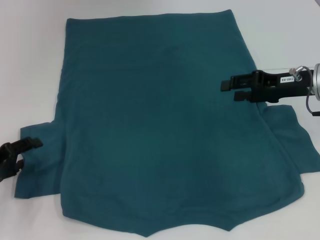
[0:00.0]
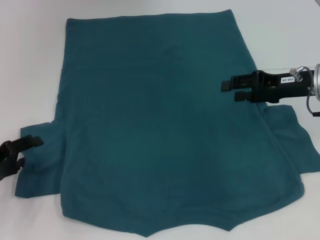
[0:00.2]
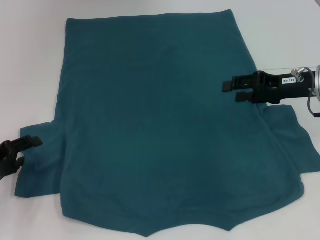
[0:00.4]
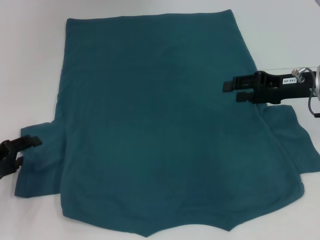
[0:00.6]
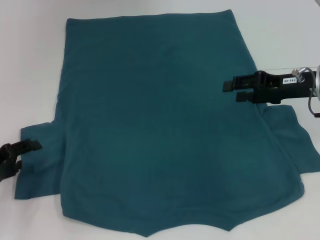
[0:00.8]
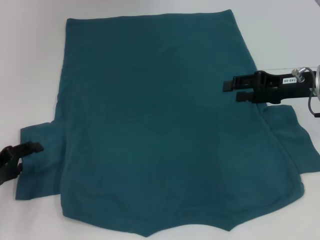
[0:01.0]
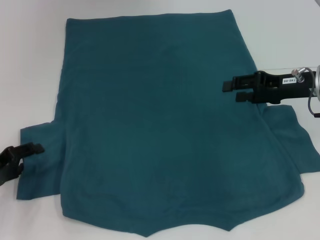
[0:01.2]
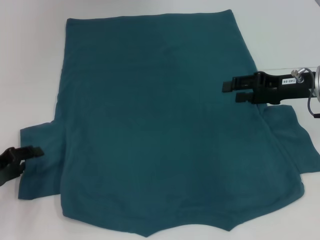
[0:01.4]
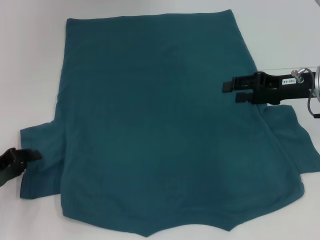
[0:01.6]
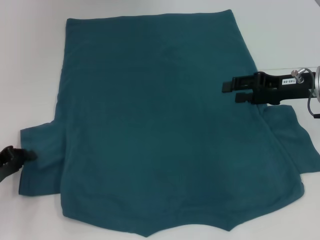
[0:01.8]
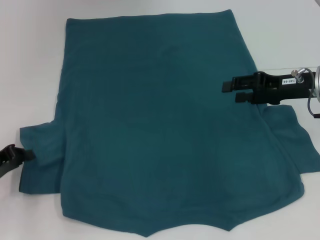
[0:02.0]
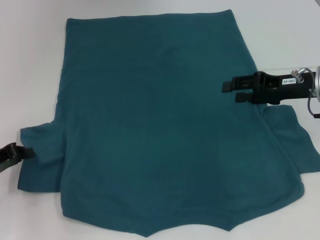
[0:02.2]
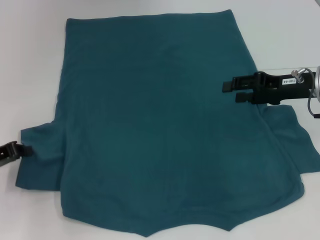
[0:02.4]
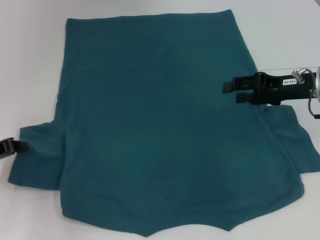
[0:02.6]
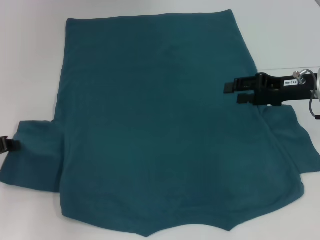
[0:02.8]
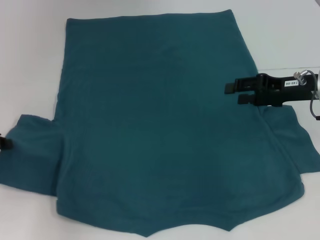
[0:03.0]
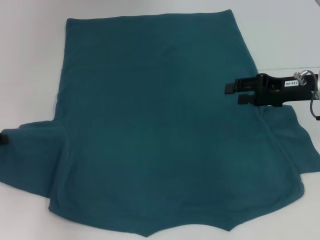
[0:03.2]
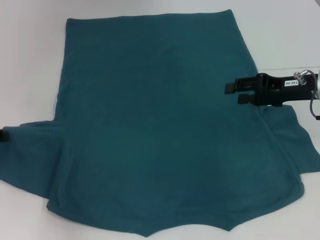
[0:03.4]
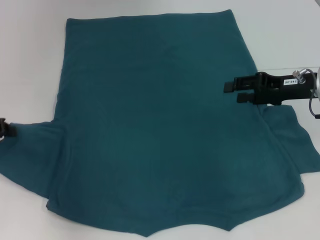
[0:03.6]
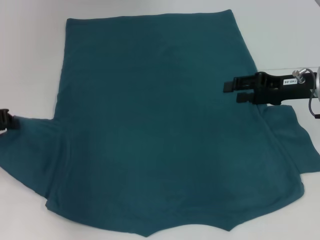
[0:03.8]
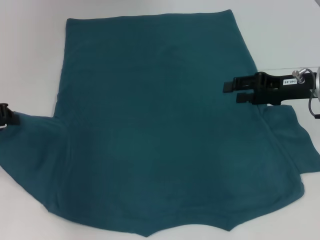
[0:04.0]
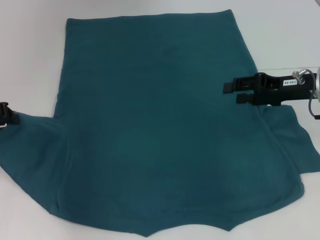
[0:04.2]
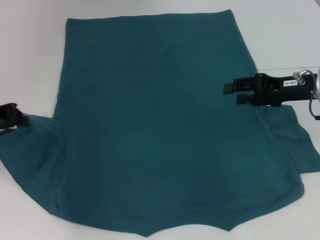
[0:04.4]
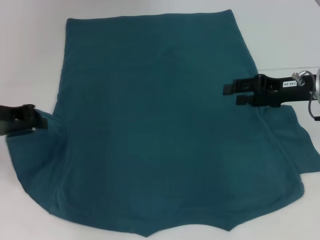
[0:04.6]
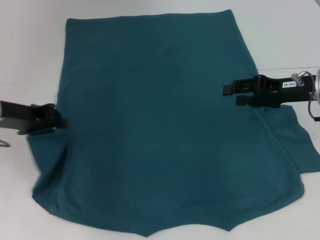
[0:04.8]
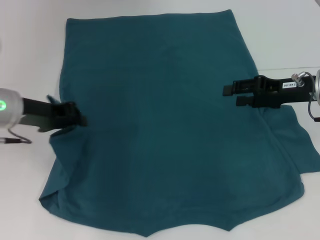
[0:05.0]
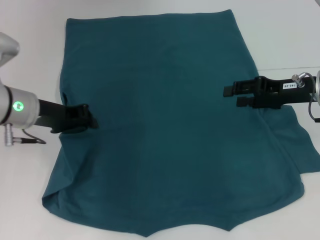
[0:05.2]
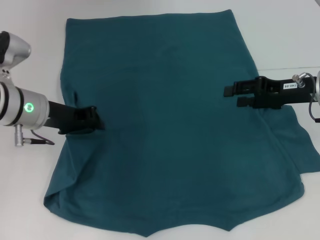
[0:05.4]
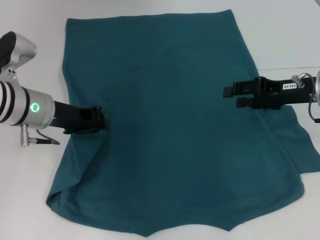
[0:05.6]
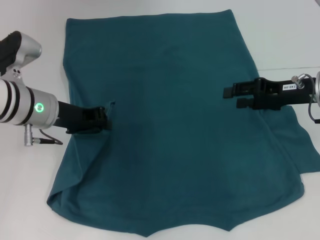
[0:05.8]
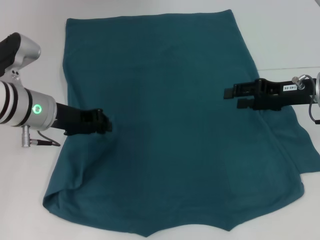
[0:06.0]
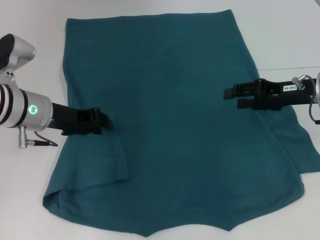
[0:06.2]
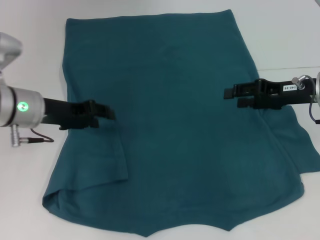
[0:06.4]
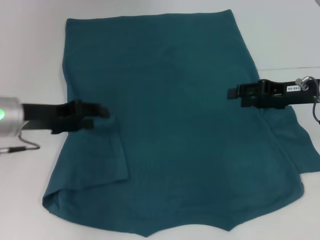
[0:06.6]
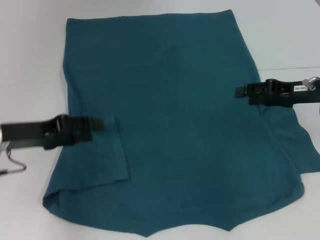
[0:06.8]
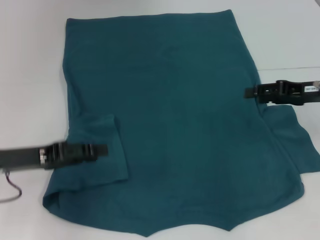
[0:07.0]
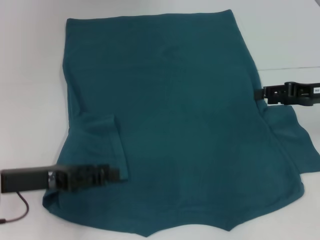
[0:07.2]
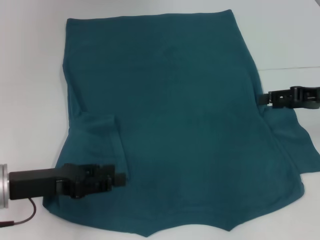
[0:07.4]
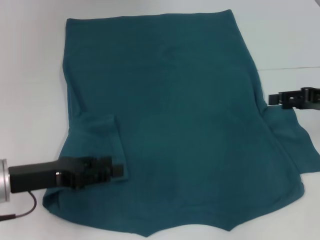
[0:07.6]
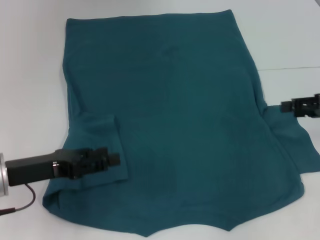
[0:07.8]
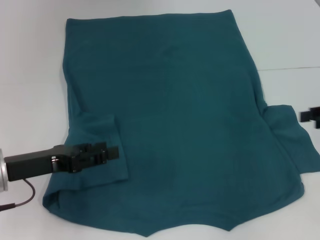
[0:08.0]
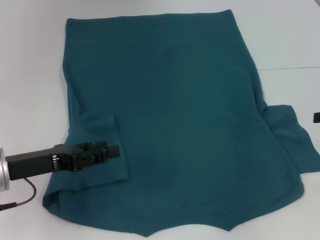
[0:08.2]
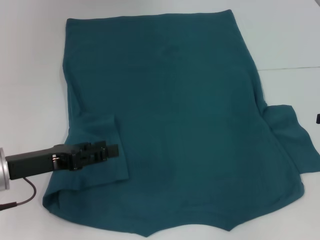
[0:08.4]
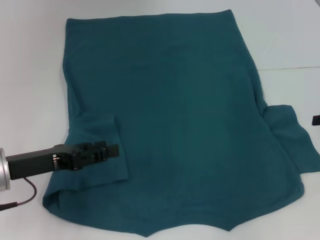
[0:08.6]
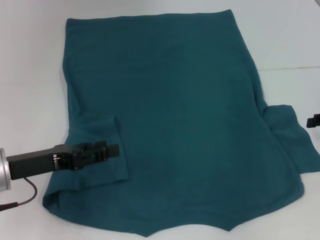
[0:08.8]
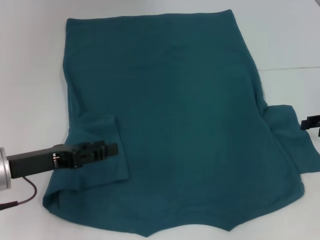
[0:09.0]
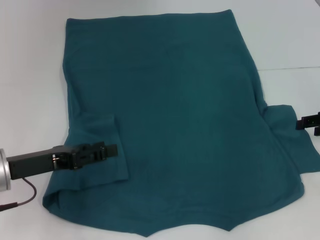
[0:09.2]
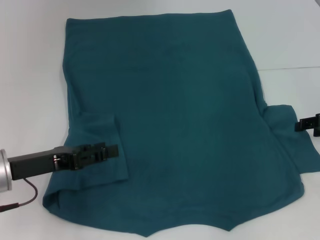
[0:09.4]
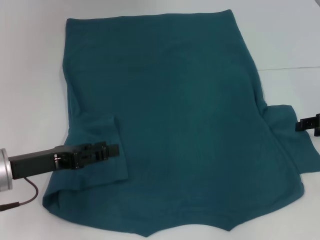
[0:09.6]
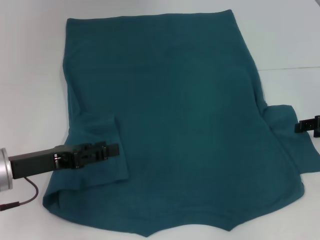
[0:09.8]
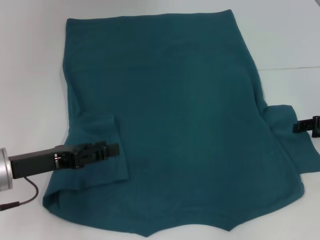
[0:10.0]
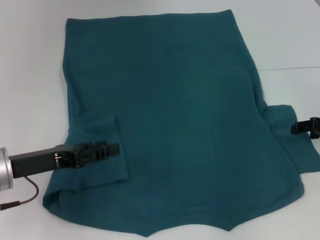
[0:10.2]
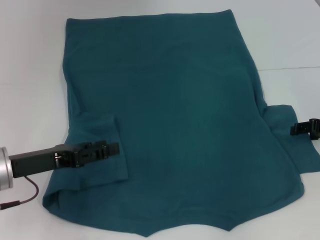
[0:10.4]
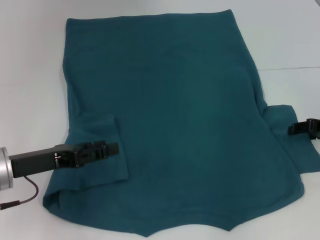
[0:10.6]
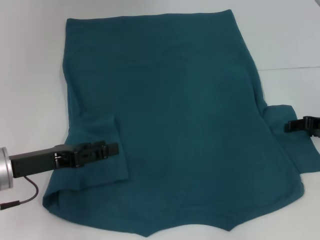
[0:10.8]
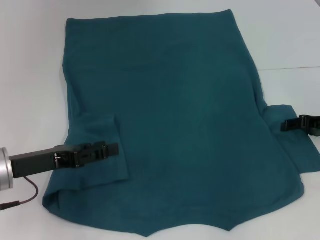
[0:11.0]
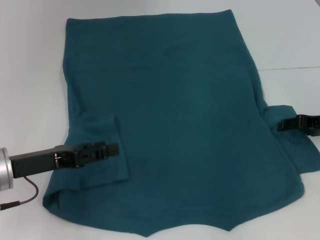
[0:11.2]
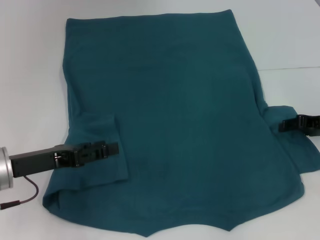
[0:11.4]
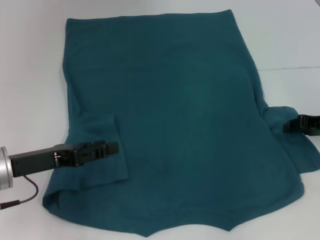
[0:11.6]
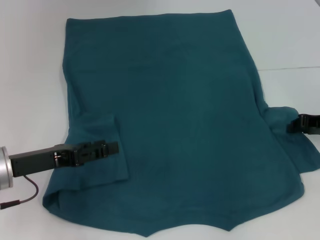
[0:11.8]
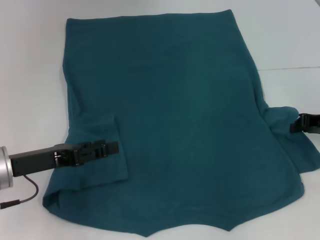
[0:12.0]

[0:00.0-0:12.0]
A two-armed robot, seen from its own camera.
Step, 0:00.0 to 0:06.2: Fold the bottom left sleeve with your left hand.
0:00.0 to 0:01.6: The left gripper closes.
0:01.6 to 0:03.0: The left gripper changes place by about 5 cm, and closes.
0:03.0 to 0:04.4: The left gripper shifts about 5 cm upward.
0:04.4 to 0:06.0: The left gripper shifts some 10 cm to the right.
0:06.0 to 0:07.6: The left gripper moves backward and to the left, some 10 cm, and opens. Meanwhile the right gripper is displaced to the right by roughly 5 cm.
0:07.6 to 0:09.0: The right gripper shifts by about 5 cm.
0:09.0 to 0:10.4: The grippers move only a little.
0:10.4 to 0:12.0: The right gripper closes up.

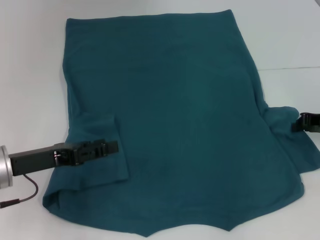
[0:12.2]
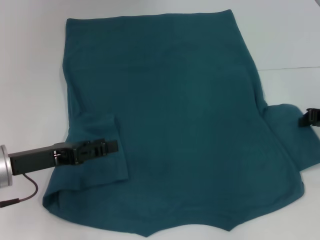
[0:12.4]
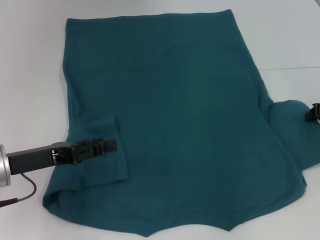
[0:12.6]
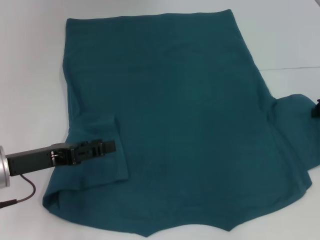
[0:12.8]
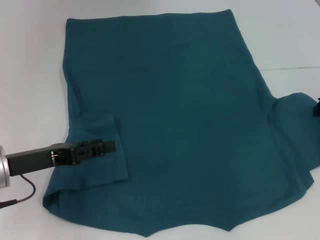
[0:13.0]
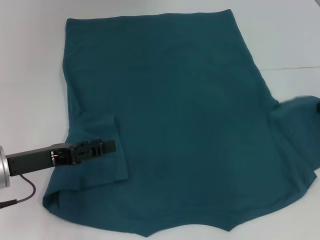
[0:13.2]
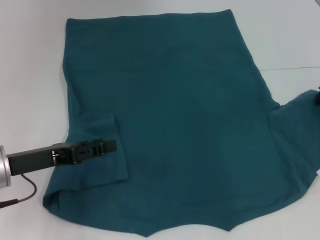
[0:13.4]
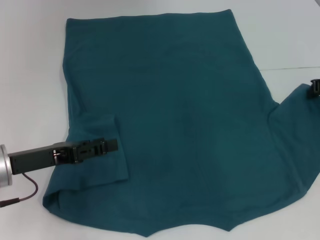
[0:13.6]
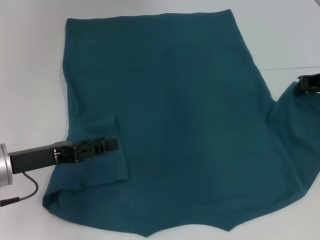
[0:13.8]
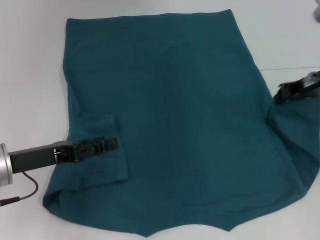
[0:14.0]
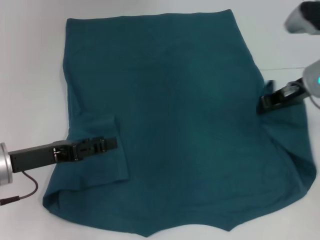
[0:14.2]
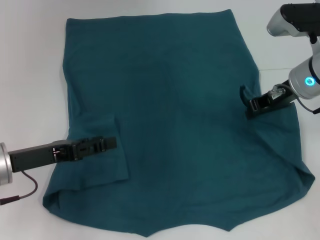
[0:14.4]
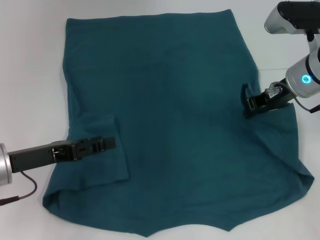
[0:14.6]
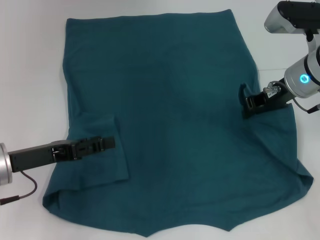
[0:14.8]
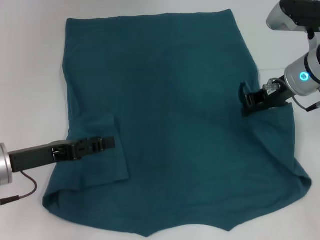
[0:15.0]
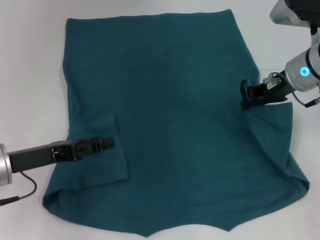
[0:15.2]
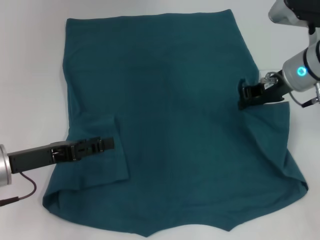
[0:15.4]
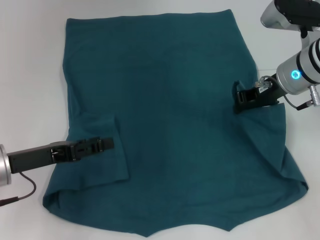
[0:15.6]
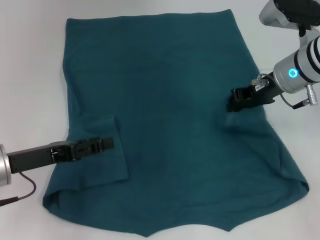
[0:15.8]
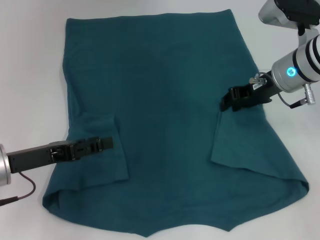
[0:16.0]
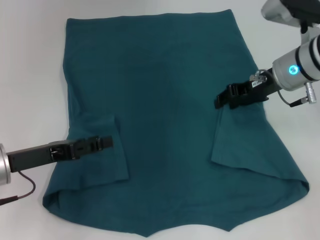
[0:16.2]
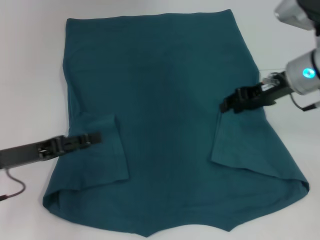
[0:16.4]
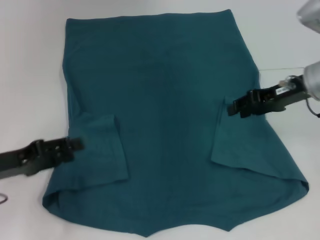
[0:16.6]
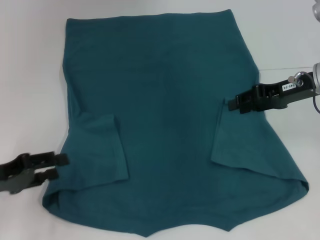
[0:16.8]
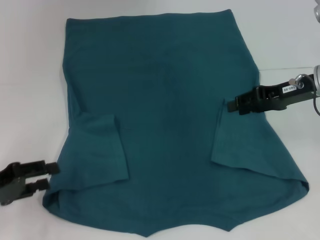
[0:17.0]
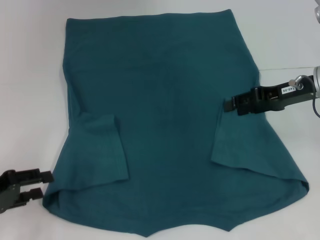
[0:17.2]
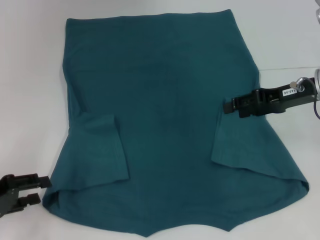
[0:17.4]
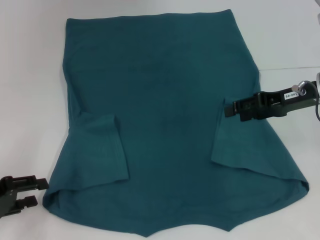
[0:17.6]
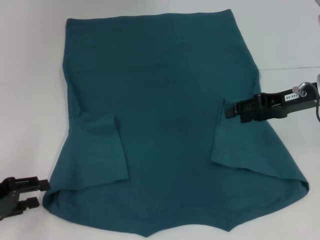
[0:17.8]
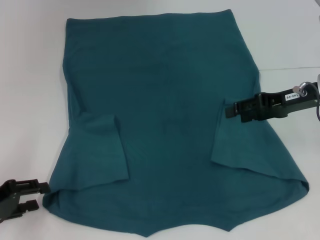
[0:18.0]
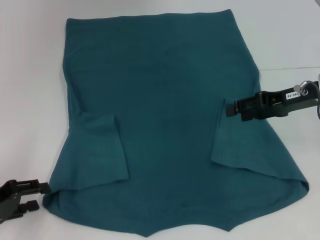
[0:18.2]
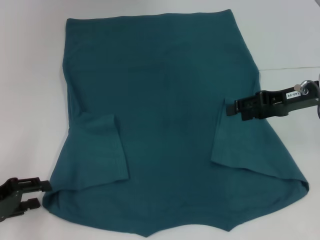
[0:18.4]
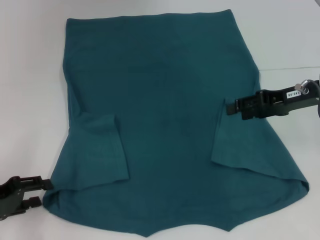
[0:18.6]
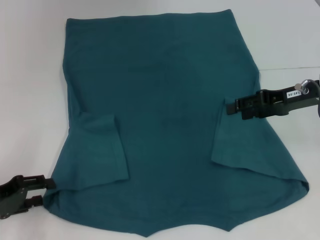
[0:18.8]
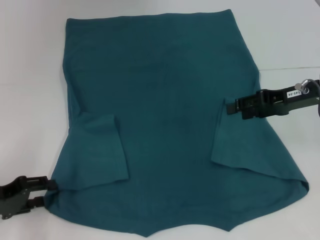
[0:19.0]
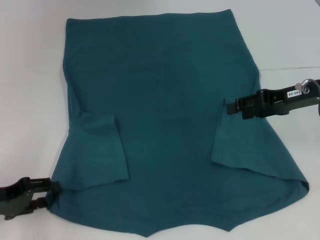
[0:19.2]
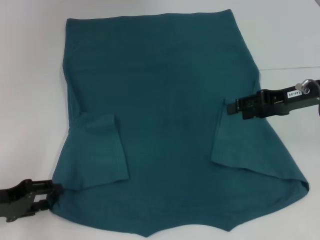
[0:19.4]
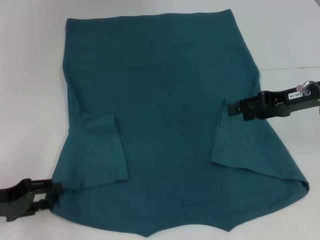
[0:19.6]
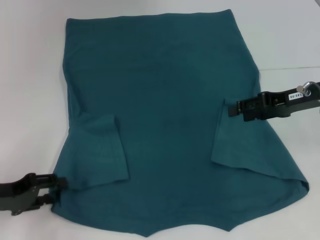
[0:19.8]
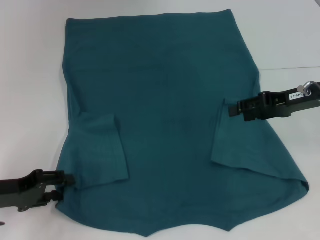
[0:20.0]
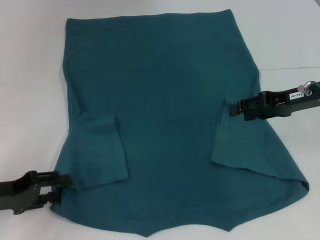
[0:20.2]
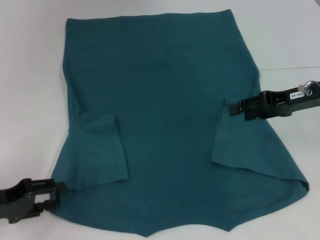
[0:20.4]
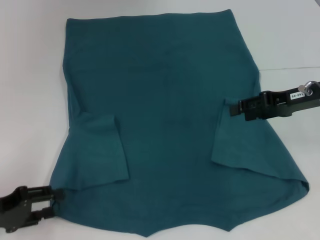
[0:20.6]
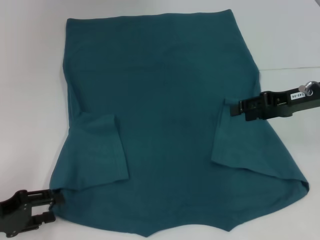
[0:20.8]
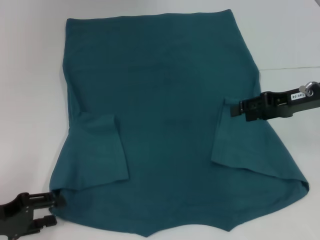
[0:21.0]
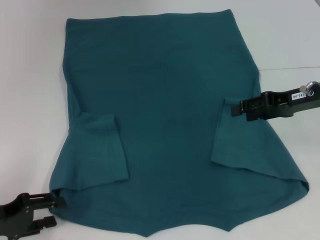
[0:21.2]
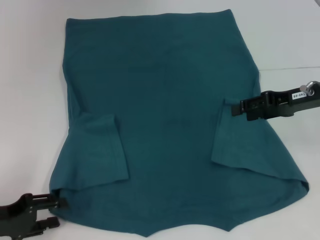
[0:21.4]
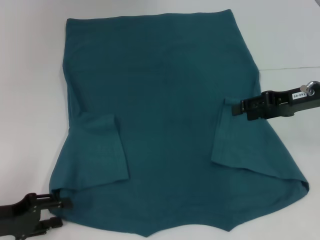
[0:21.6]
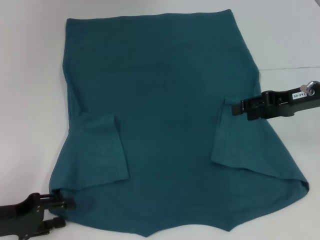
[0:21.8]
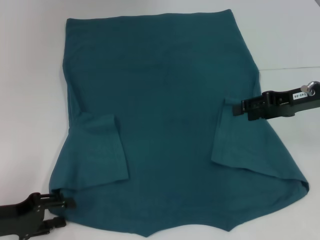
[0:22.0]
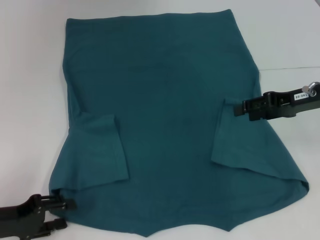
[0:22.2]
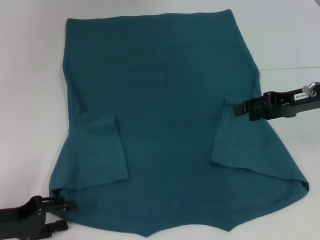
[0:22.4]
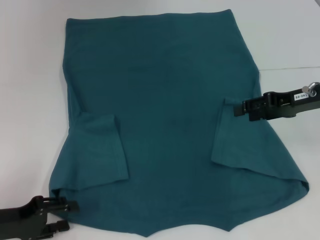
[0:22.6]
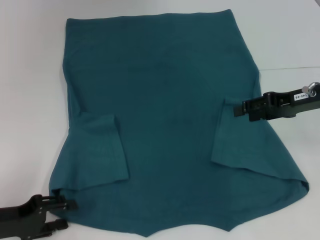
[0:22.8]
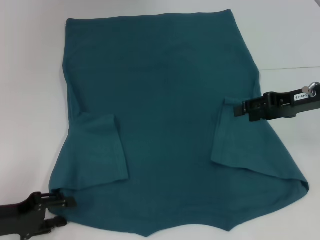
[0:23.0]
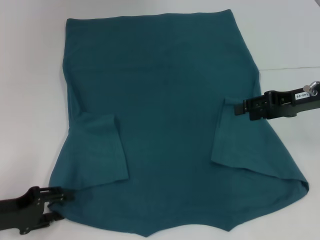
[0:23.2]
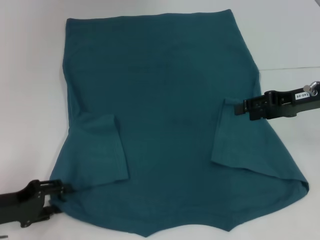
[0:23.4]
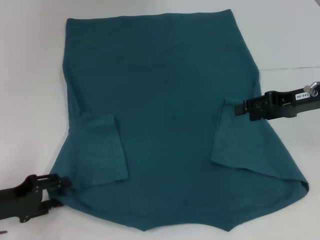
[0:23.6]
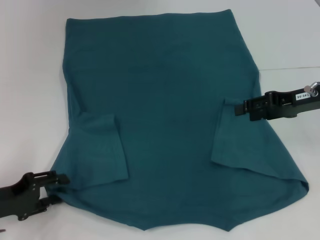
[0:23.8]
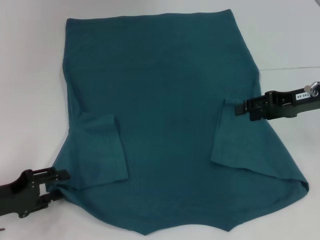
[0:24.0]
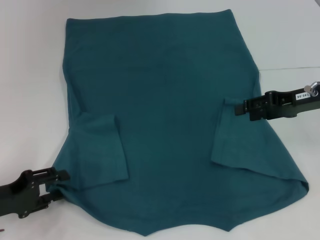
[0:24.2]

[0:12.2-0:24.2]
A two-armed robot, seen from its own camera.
Step, 0:12.2 to 0:16.8: Fold the bottom right sleeve to the right.
0:12.2 to 0:13.8: The right gripper goes some 5 cm upward.
0:13.8 to 0:15.2: The right gripper goes about 10 cm to the left.
0:15.2 to 0:16.6: The right gripper opens up.
0:16.6 to 0:18.2: The left gripper changes place by some 5 cm.
0:18.2 to 0:24.2: There are only small adjustments of the grippers.
